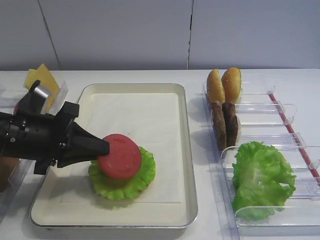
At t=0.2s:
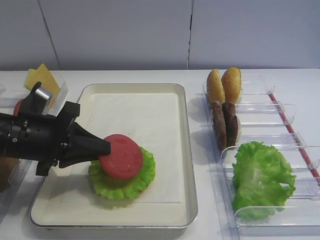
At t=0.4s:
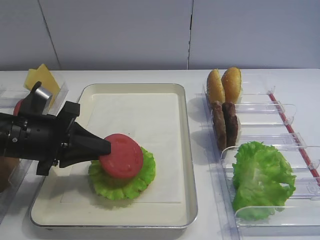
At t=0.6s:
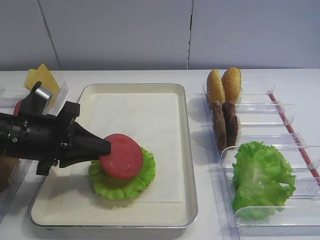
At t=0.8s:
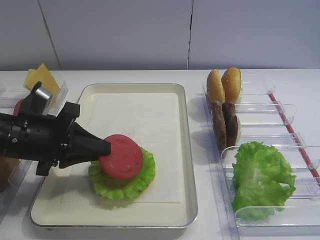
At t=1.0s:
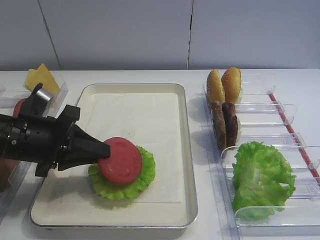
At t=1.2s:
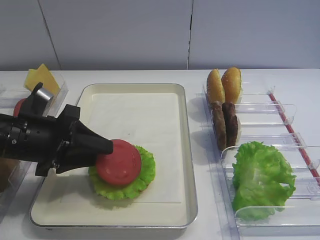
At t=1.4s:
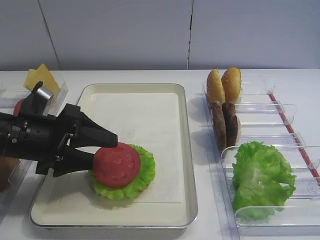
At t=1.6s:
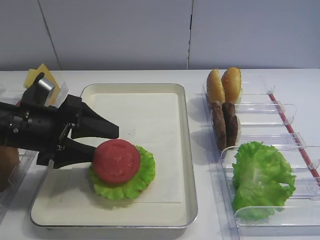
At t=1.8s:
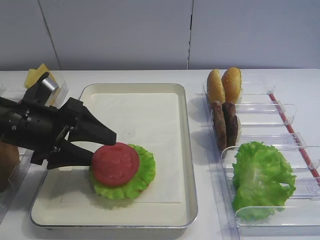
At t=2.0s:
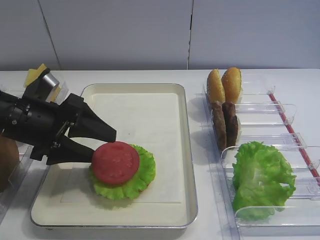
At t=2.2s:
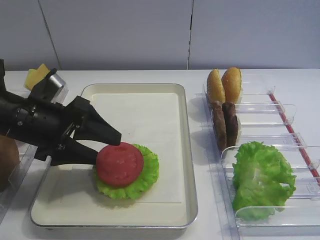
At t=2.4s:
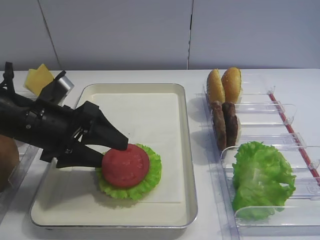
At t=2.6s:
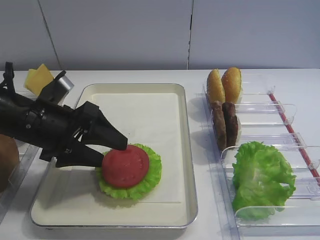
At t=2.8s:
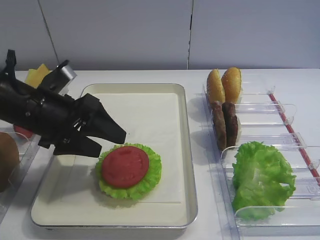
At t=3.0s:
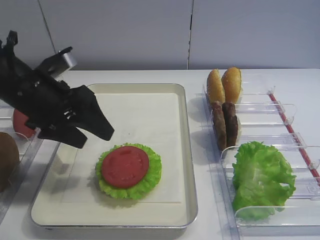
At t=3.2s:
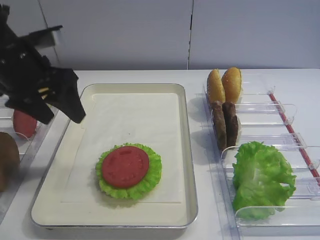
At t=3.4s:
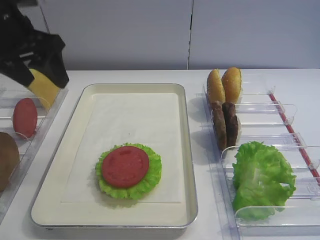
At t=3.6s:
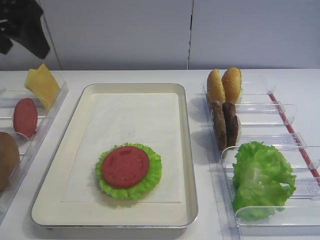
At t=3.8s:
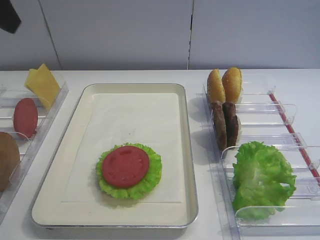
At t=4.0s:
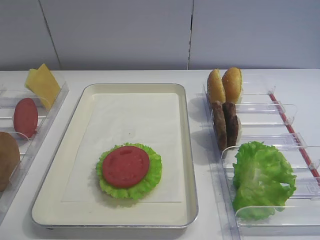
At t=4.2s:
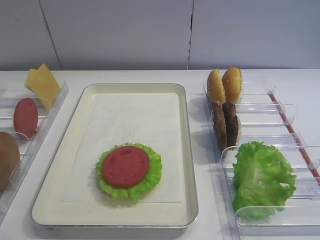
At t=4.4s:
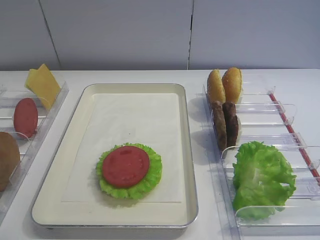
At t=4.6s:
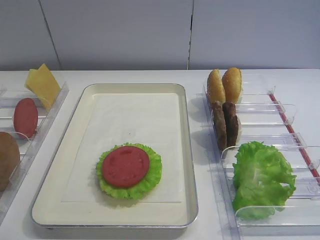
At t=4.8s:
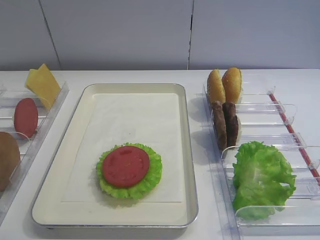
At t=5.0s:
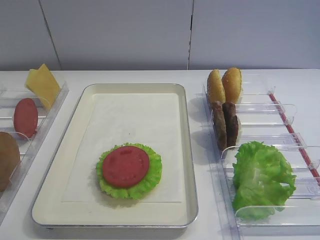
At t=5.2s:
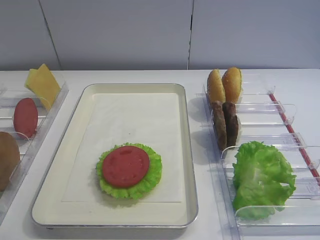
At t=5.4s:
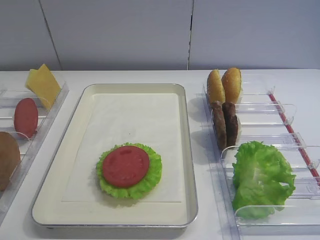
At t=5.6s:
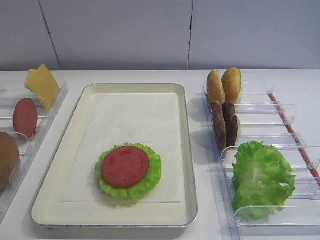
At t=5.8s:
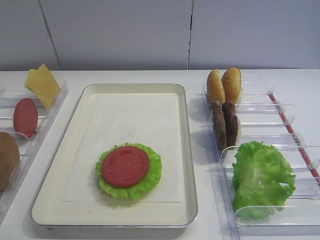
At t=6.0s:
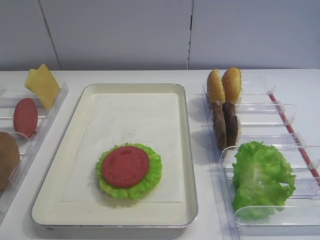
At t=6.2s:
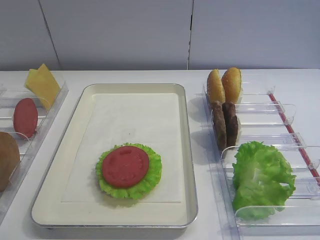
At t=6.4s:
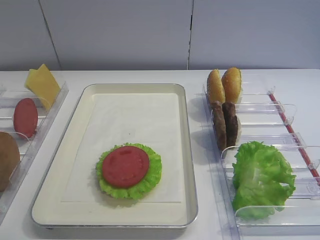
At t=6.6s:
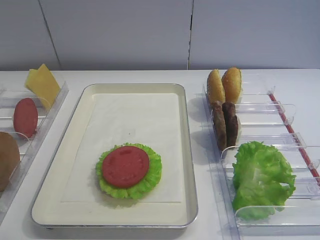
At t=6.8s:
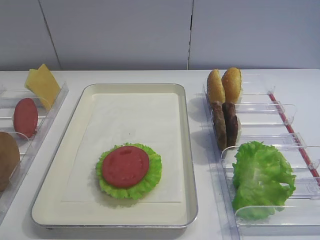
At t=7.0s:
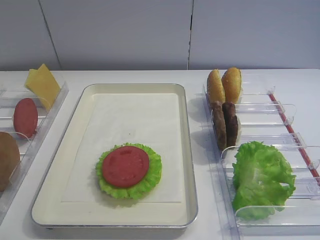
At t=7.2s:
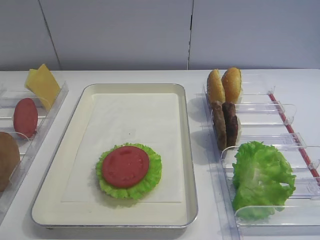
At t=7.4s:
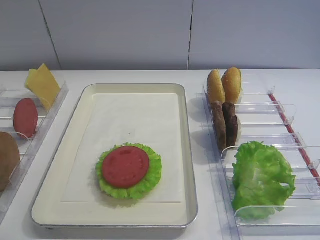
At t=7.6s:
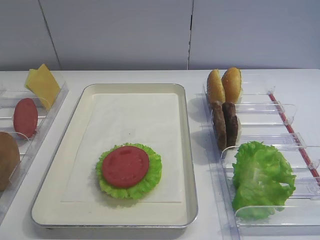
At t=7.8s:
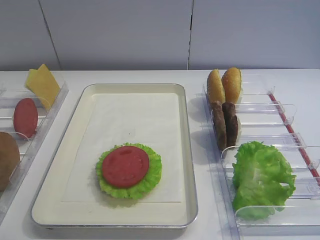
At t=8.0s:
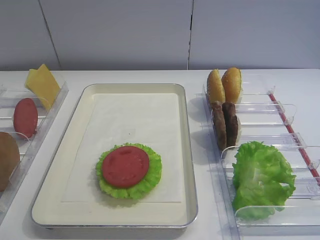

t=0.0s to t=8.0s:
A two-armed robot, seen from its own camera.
Step, t=0.0s to t=3.0s: Place the tomato slice on the lettuce leaf with the left gripper.
t=0.0s to t=1.6s: The left gripper opens up.
t=1.6s to t=3.2s: The left gripper moves upward and forward, about 10 cm.
t=3.2s to t=4.8s: The left gripper shifts approximately 30 cm backward.
t=6.4s to t=8.0s: Both grippers stay about where they are.
